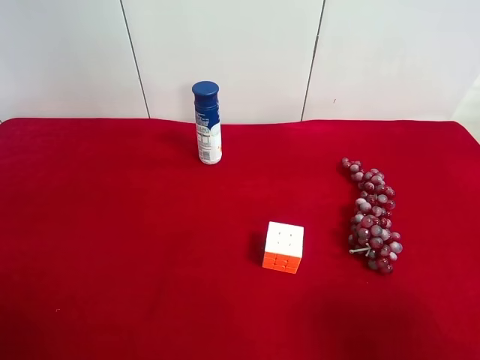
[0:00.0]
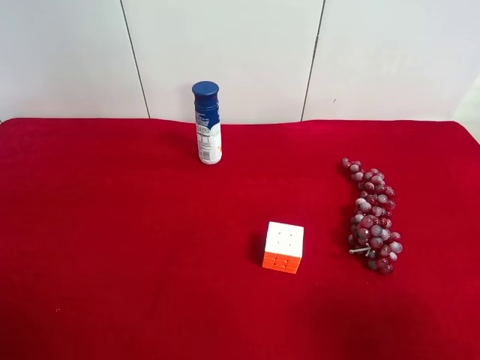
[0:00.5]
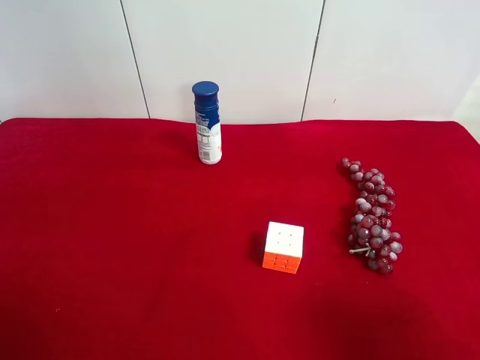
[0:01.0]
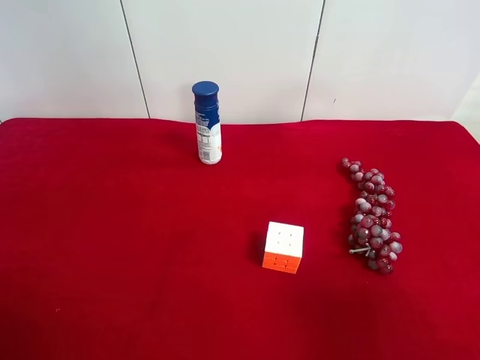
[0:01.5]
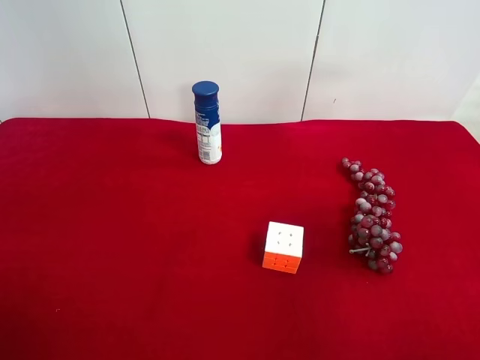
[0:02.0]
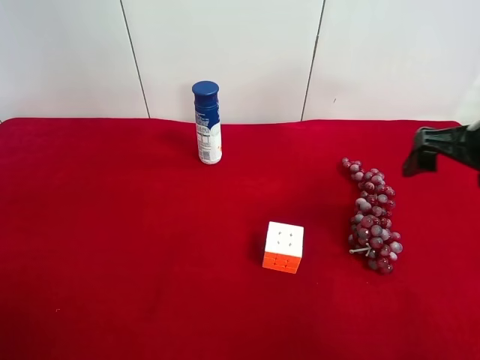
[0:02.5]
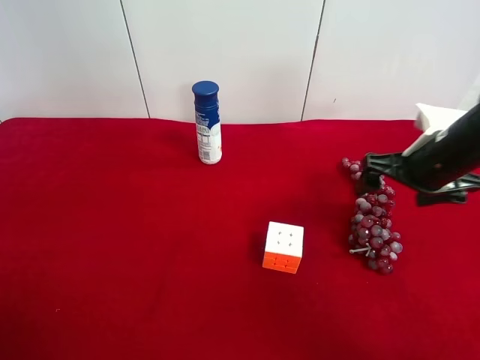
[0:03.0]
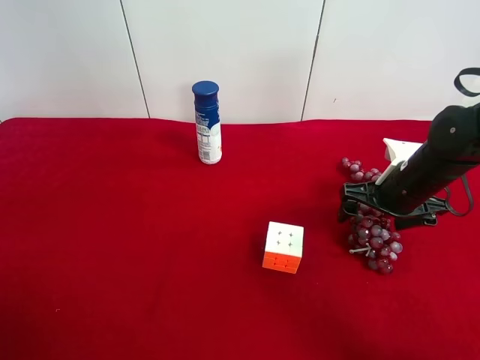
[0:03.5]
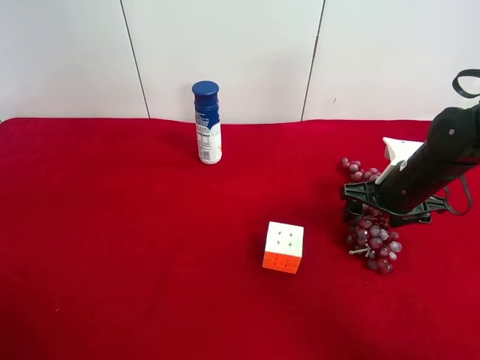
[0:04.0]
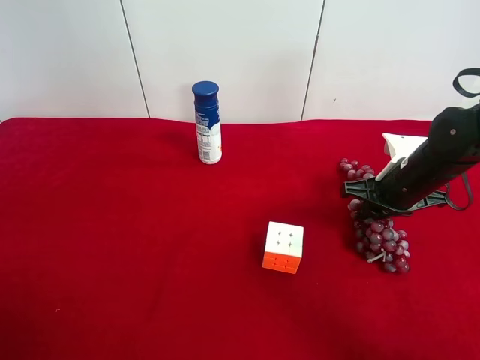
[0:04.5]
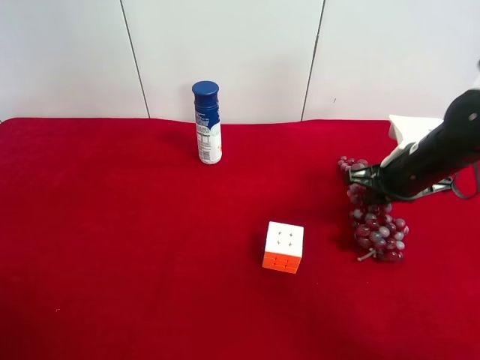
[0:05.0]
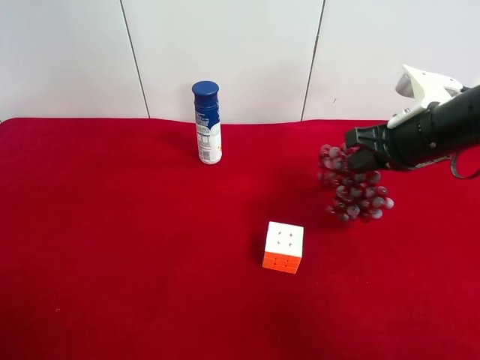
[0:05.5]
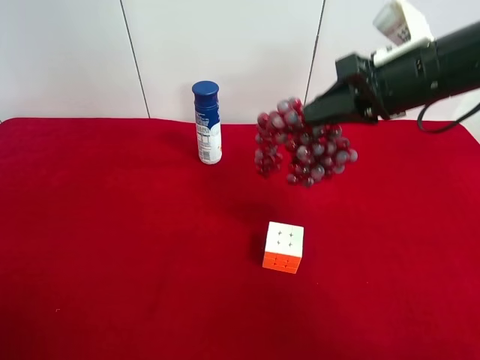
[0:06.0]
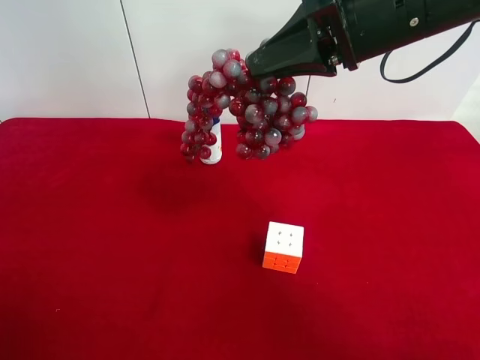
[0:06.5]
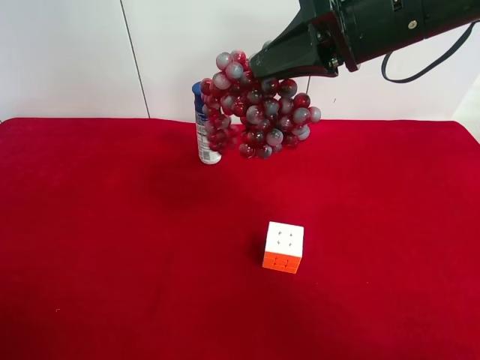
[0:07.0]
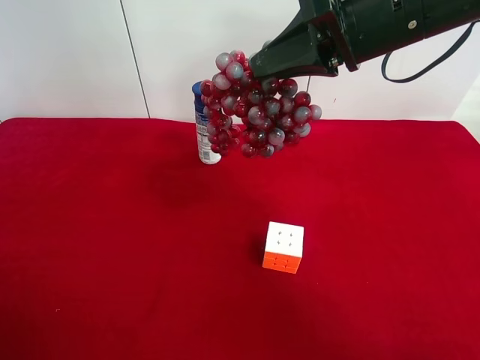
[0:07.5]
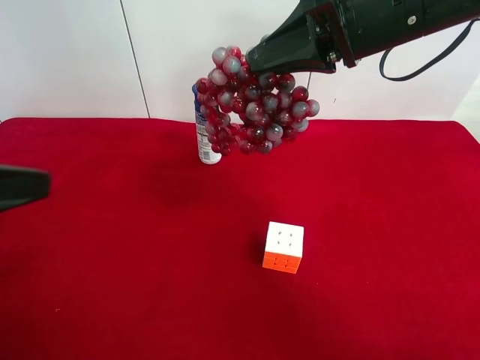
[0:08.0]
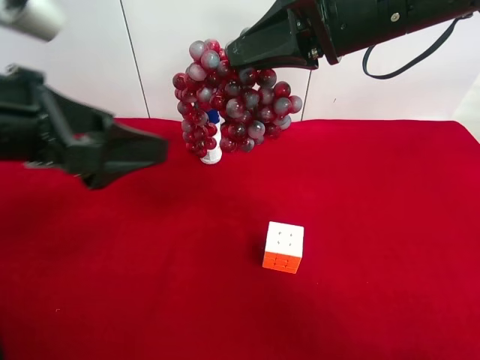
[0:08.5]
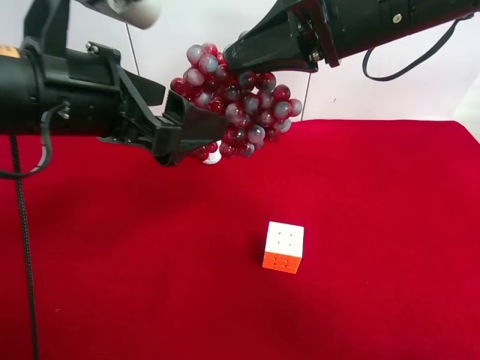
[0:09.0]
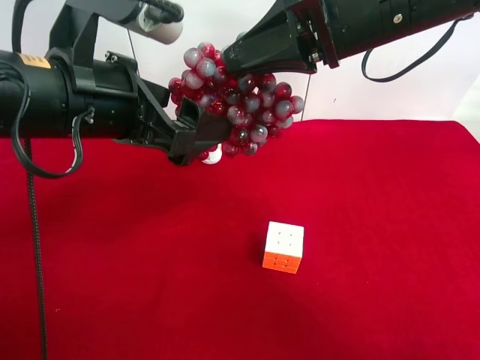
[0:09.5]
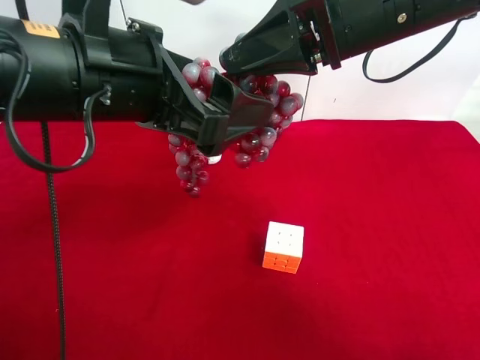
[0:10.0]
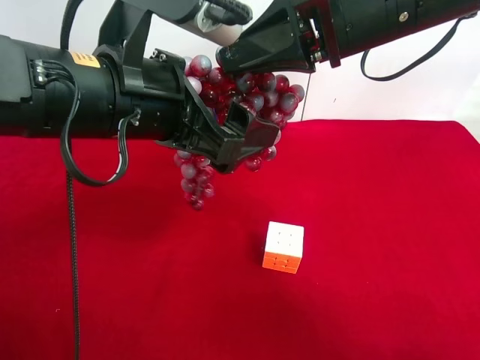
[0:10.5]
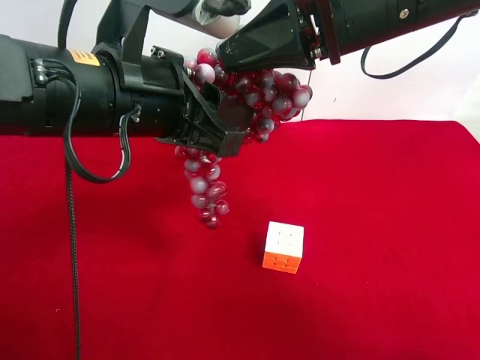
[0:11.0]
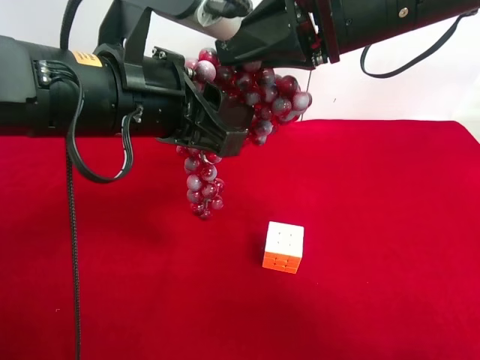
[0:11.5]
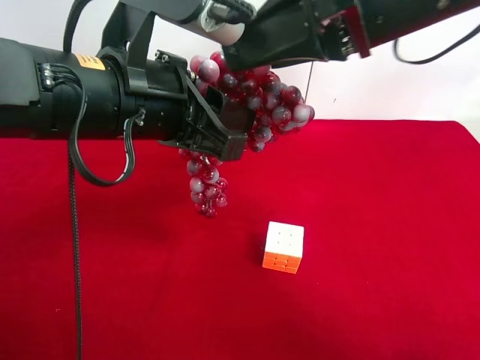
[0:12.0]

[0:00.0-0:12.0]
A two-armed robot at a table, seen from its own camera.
Task of the whole recording: use the right gripper to pick up the item and transfer it from the right gripper to the left gripper.
Step, 0:00.0 to 0:04.0: Use the right gripper to grab the grape on the right side of the table.
Step, 0:04.5 to 0:12.0: Pass the grape to the left gripper.
0:02.0 to 0:04.0: The right gripper is displaced downward and forward by approximately 25 cm.
0:04.0 to 0:06.0: The right gripper travels upward by about 15 cm, and closes.
0:06.0 to 0:08.0: The right gripper is displaced to the left and upward by approximately 10 cm. The left gripper is displaced forward and to the right by approximately 15 cm.
0:08.0 to 0:10.0: The left gripper moves to the right and forward, roughly 15 cm.
0:10.0 to 0:12.0: The right gripper opens up. Meanwhile the left gripper closes its fingers.

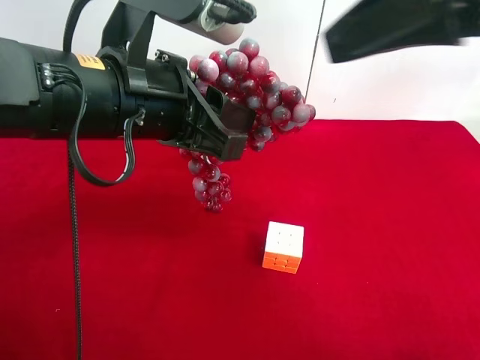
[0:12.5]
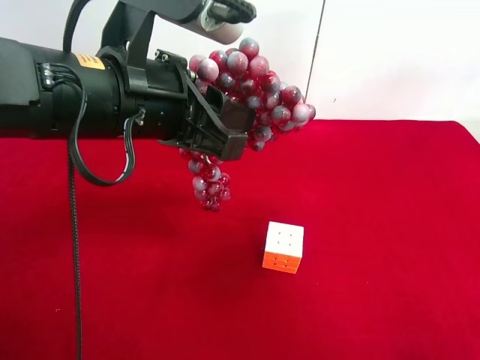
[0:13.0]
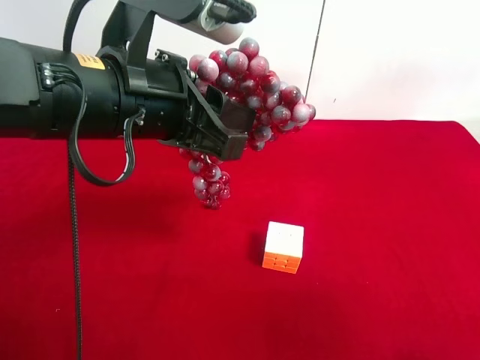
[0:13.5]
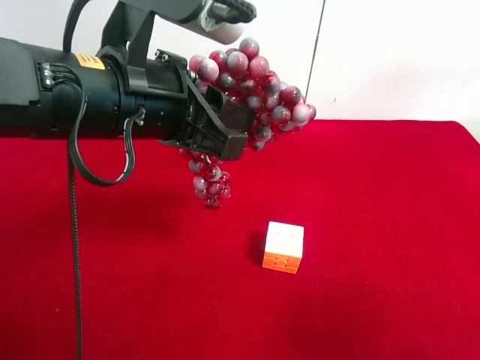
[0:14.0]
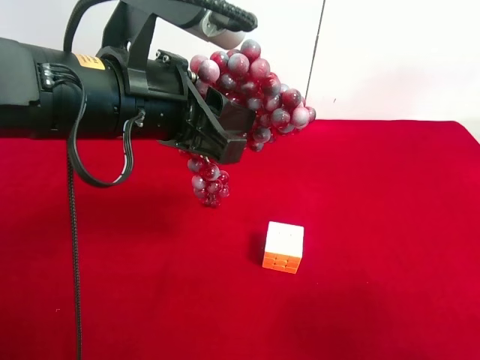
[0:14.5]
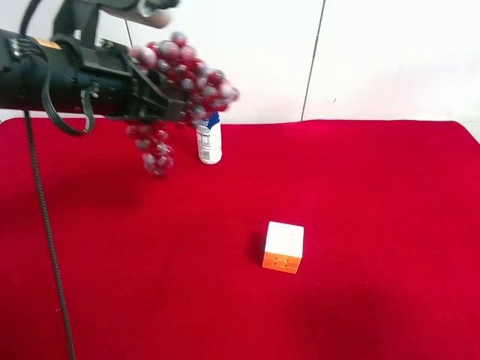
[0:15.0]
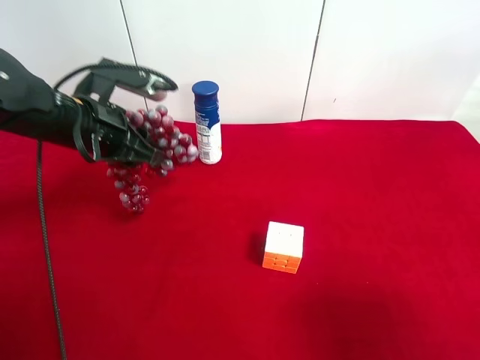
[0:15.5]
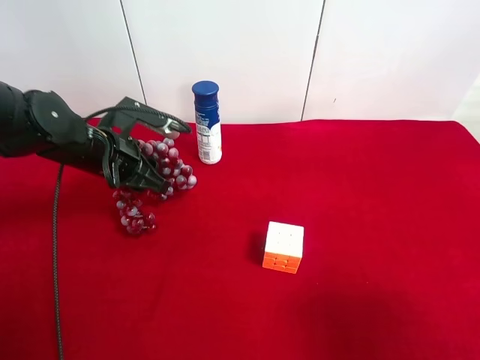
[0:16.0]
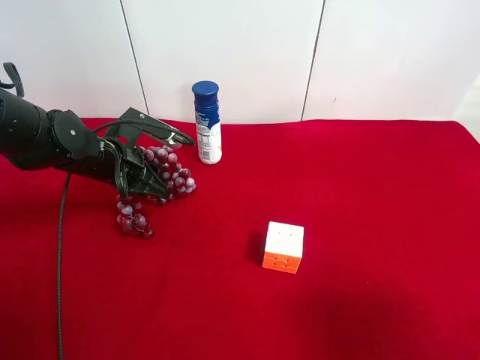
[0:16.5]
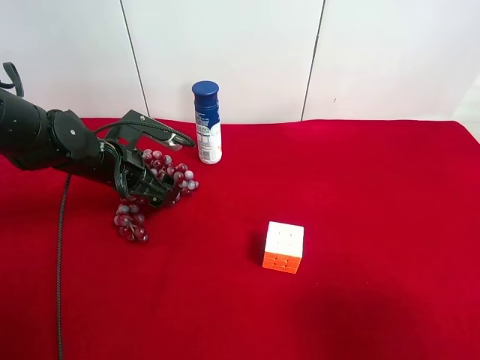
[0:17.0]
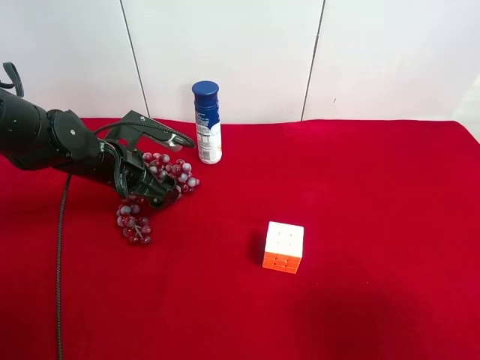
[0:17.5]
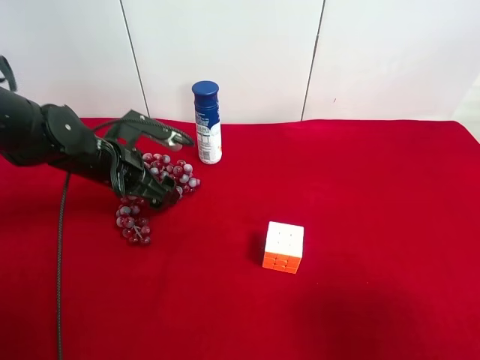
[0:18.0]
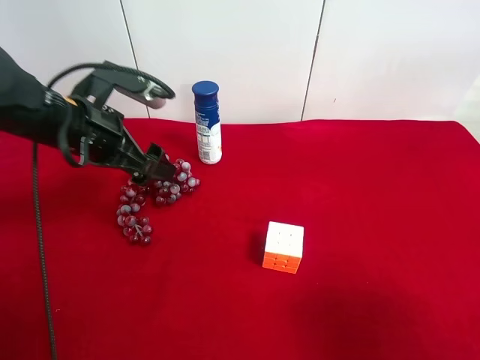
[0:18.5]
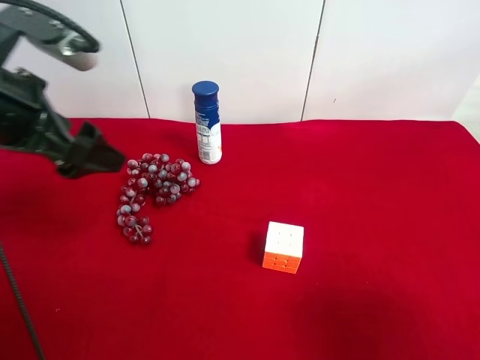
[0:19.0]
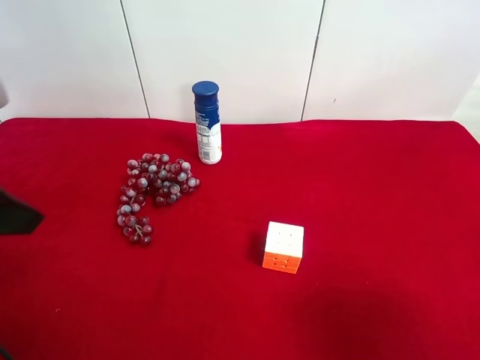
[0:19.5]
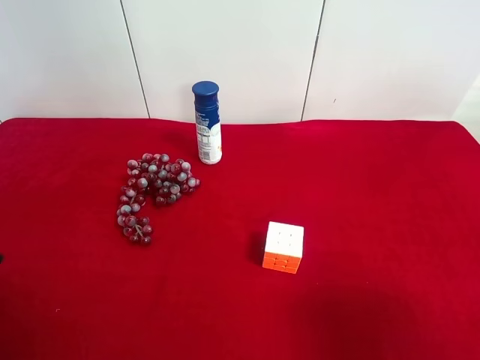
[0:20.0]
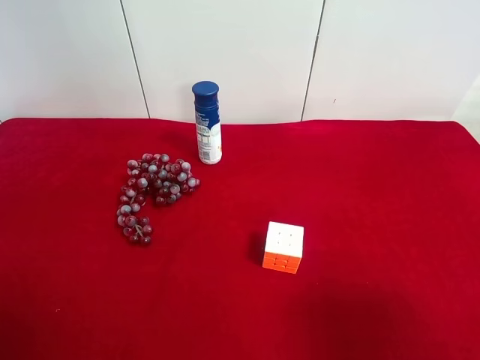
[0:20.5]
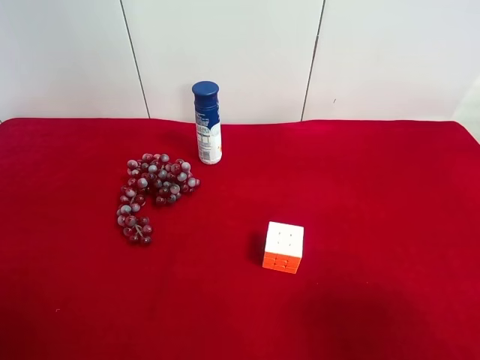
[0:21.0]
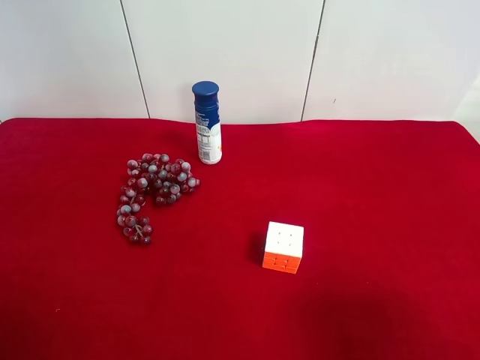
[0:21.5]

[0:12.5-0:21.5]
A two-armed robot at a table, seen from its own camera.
Task of the whole recording: use the right gripper to pick up the item and transfer it from the right gripper to the left gripper.
Step, 0:12.5 to 0:17.0: The left gripper places grape on the left side of the table.
0:12.5 to 0:14.5: The right gripper goes about 20 cm backward, downward and to the right.
0:14.5 to 0:17.0: The left gripper travels downward, forward and to the left by roughly 20 cm, and opens its fingers.
0:17.0 to 0:19.5: The left gripper travels upward and backward by some 25 cm.
0:19.5 to 0:21.5: The left gripper heads backward, covering approximately 15 cm.
